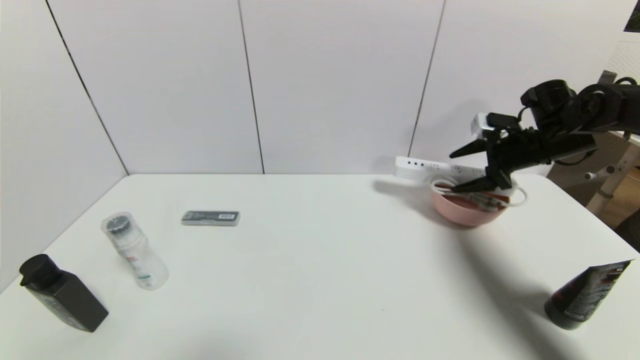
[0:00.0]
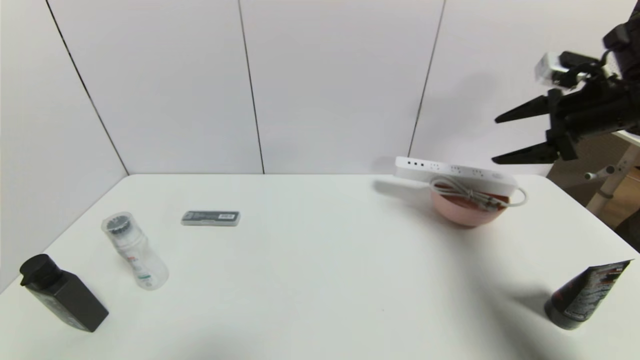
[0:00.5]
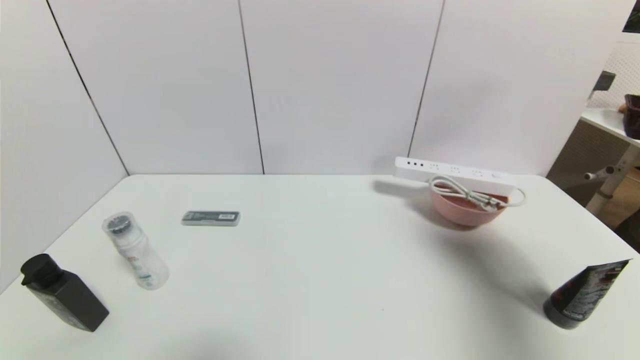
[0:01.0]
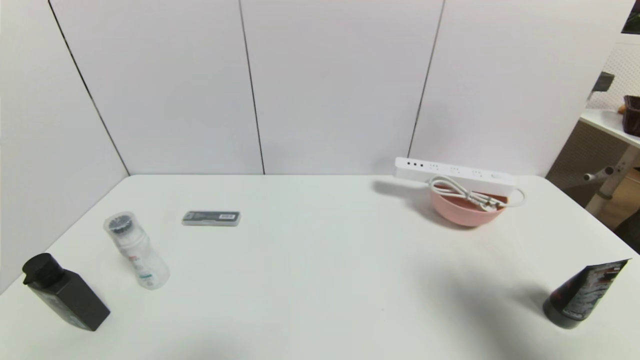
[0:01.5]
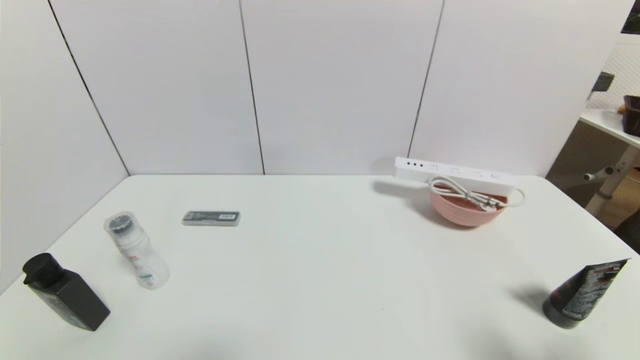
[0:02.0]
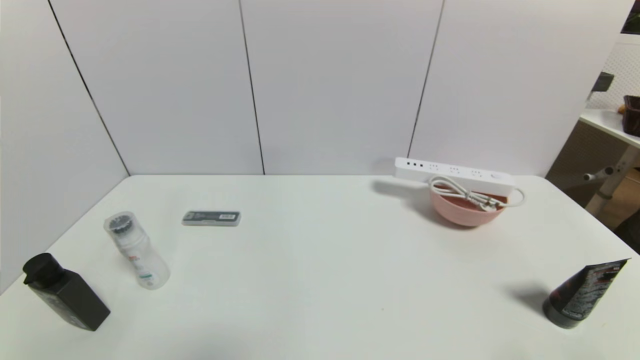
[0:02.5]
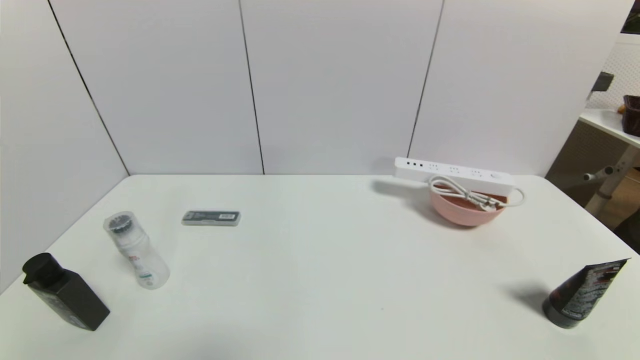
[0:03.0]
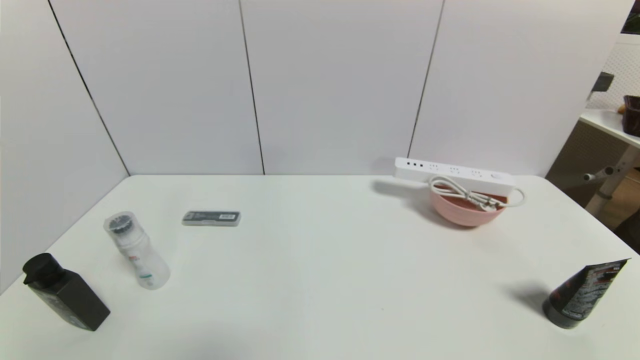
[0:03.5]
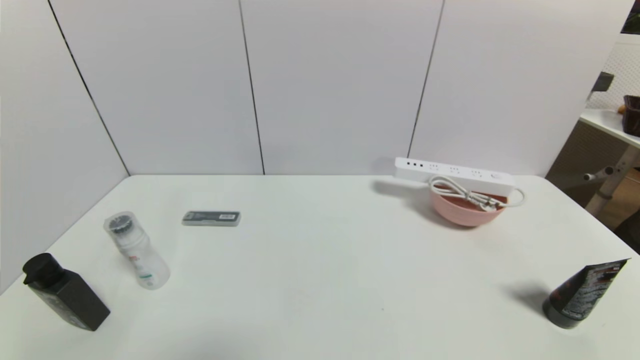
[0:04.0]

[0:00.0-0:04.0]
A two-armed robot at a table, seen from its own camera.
Task of the whole recording: use a gripper to pick the target object and place on the pink bowl.
0:00.0 to 0:02.0: The right gripper travels backward by about 40 cm.
